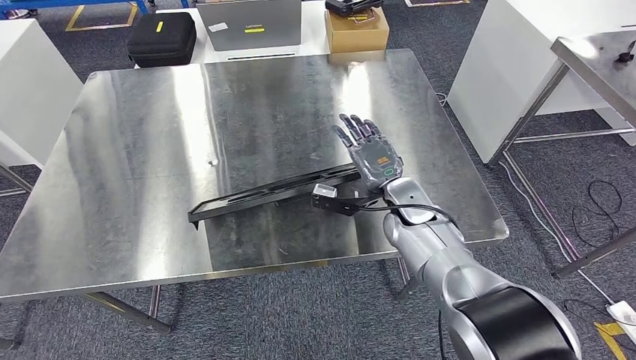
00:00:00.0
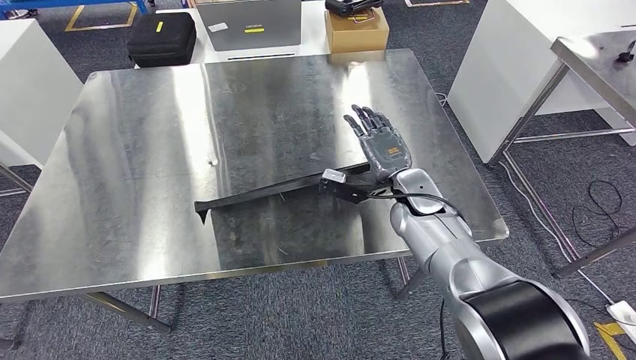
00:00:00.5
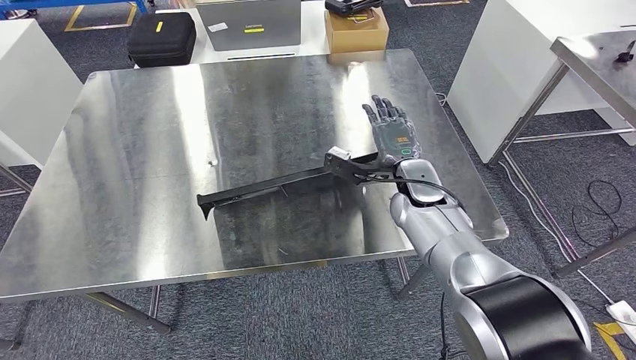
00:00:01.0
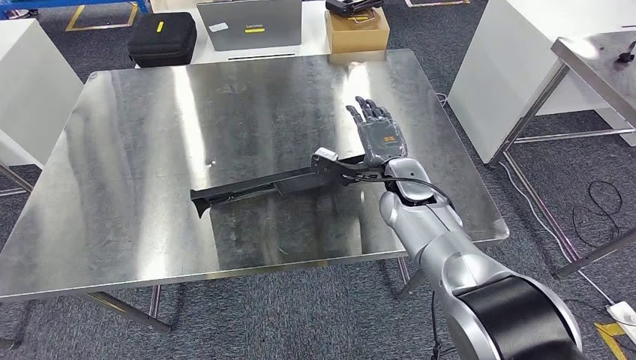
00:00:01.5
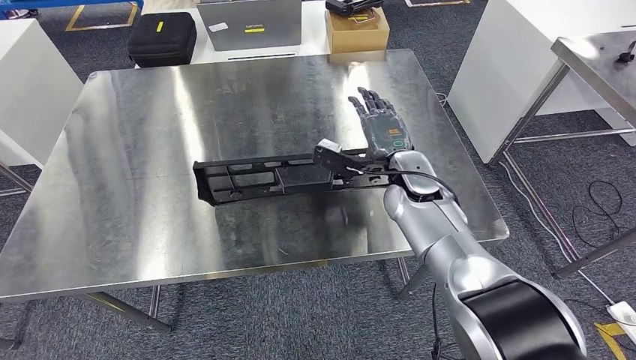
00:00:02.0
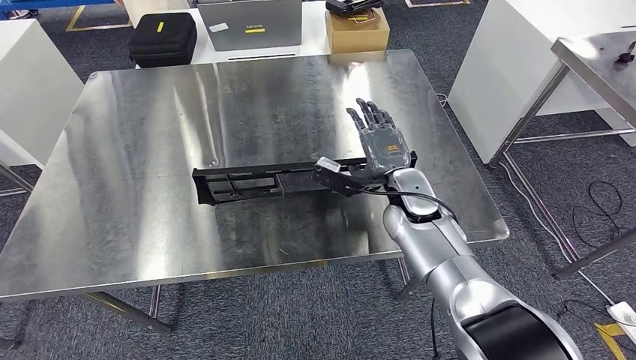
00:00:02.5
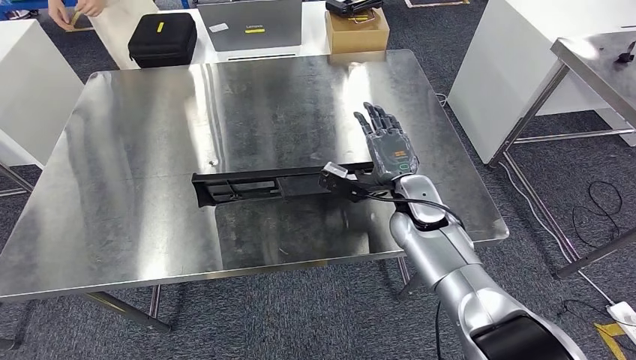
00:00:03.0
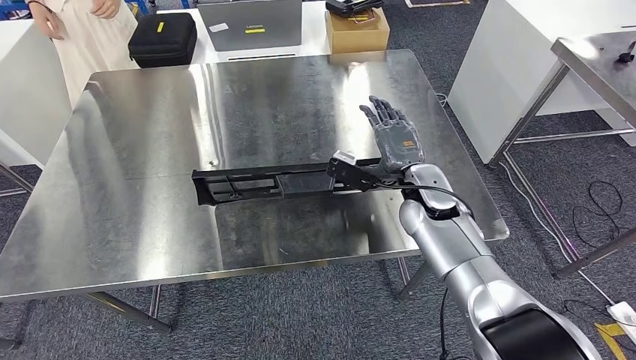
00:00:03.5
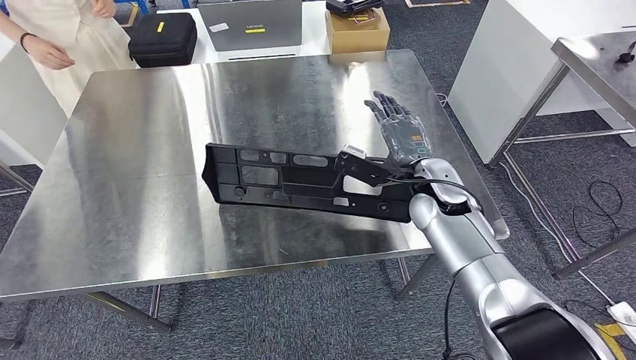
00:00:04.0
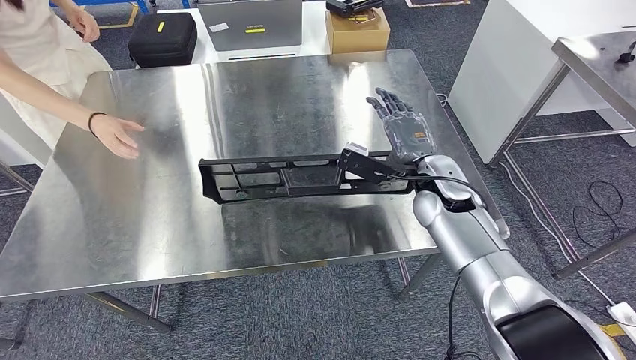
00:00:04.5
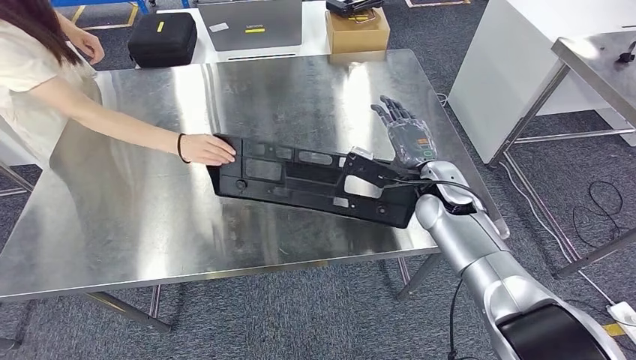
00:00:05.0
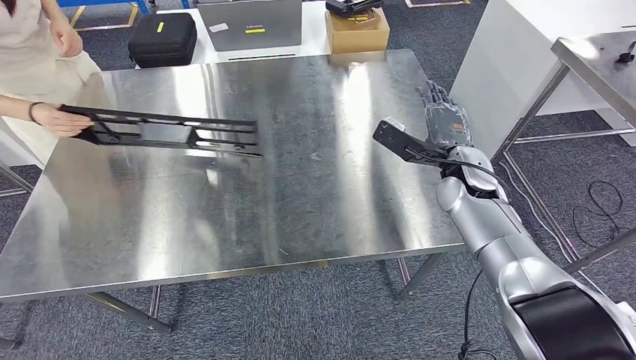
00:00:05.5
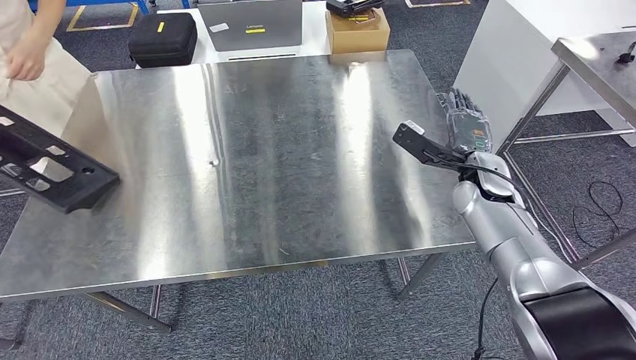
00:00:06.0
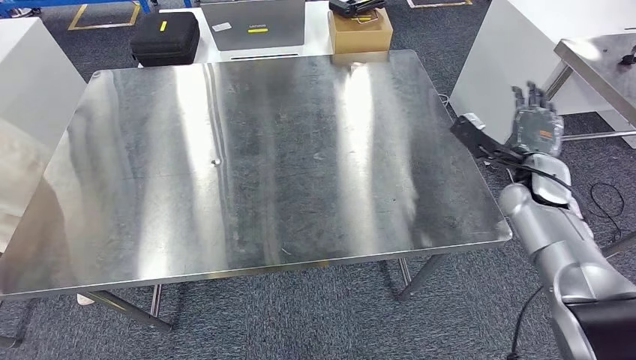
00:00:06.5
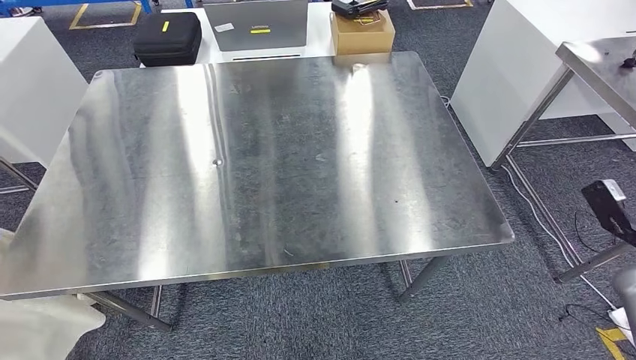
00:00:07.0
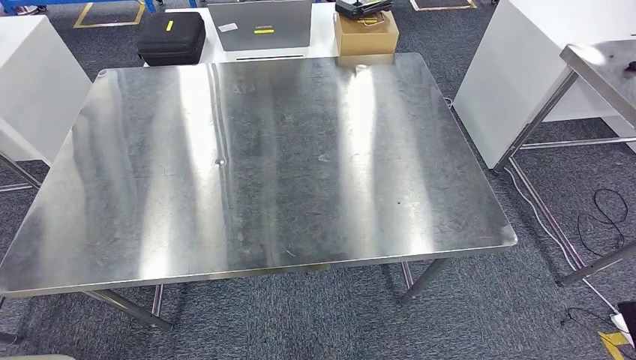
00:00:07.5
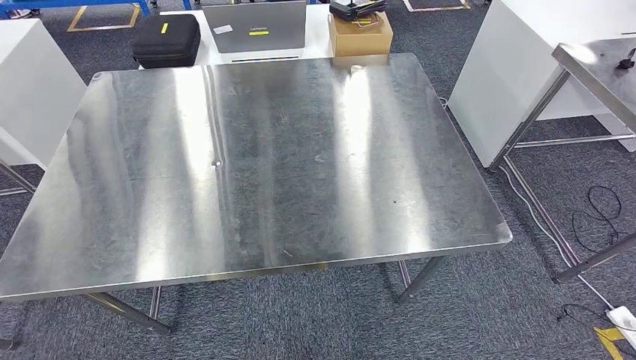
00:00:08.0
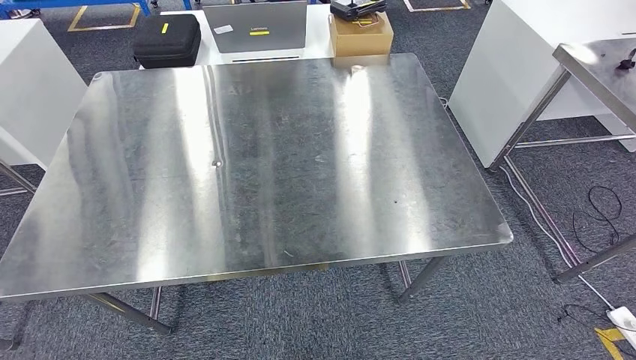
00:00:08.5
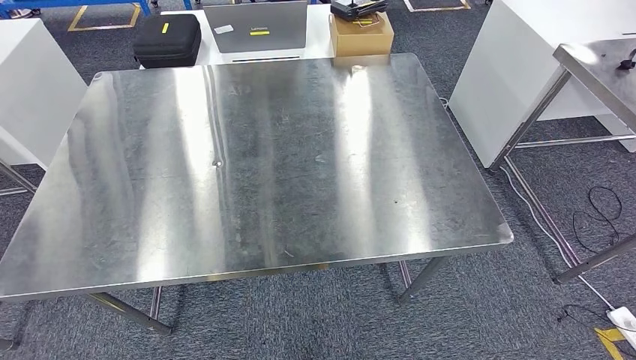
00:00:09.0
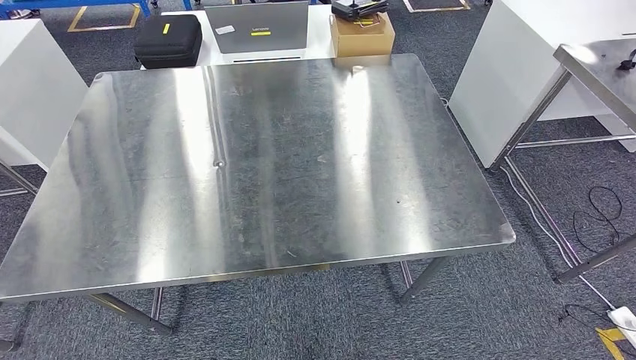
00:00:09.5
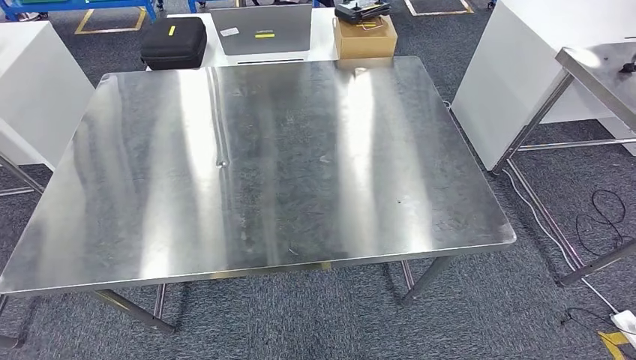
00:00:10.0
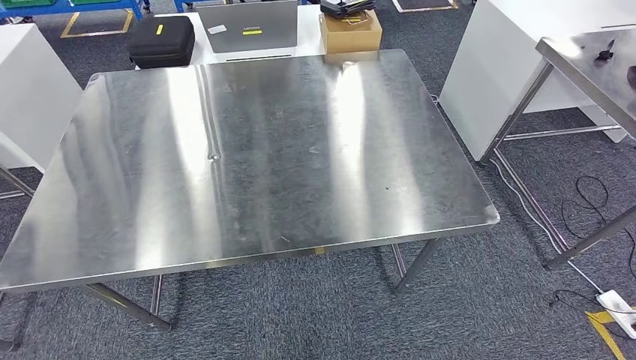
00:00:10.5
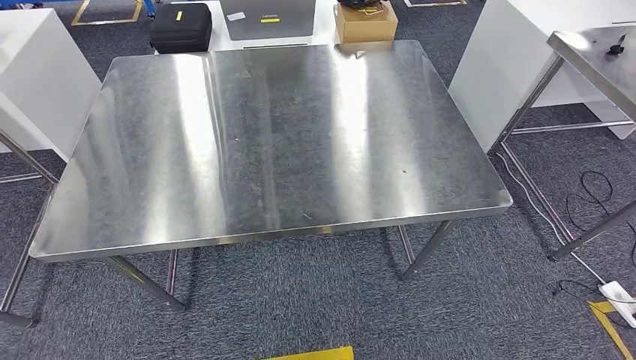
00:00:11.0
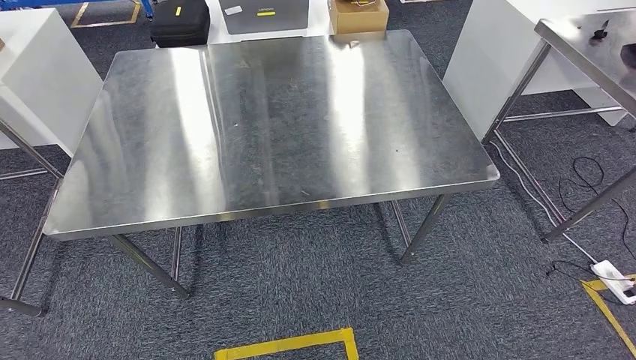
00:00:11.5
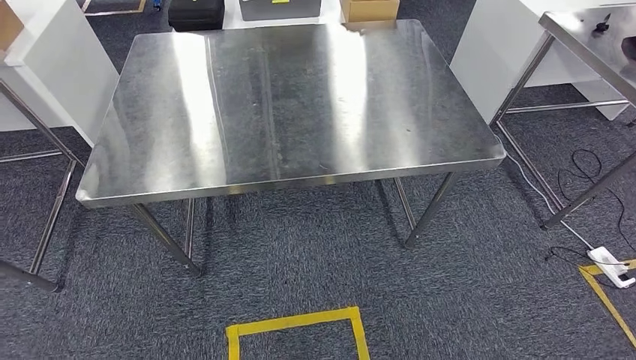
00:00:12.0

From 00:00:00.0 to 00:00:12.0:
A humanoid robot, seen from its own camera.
Step, from 00:00:00.0 to 00:00:05.5: Insert the large material into the corresponding hole on the workbench.
From 00:00:00.0 to 00:00:02.0: The right hand shifts approximately 5 cm upward.
From 00:00:02.0 to 00:00:04.0: There are only small adjustments of the hands.
From 00:00:08.0 to 00:00:10.0: The right hand shifts some 15 cm to the left.

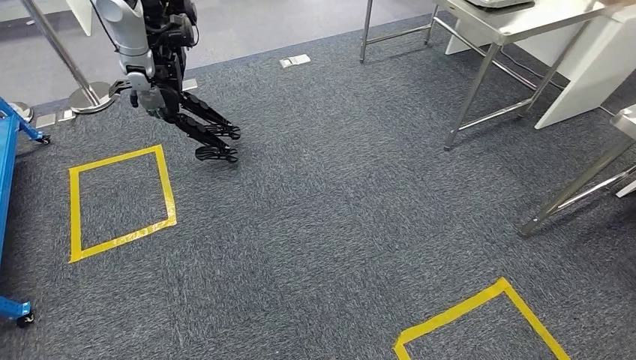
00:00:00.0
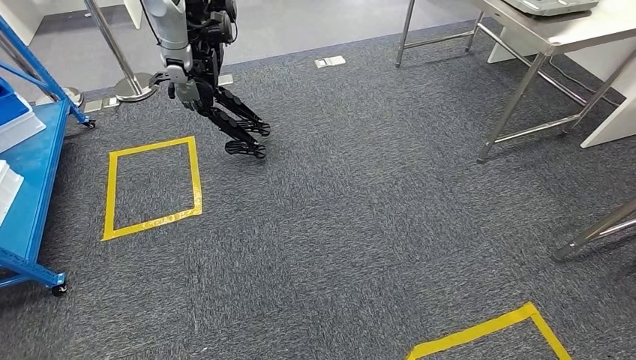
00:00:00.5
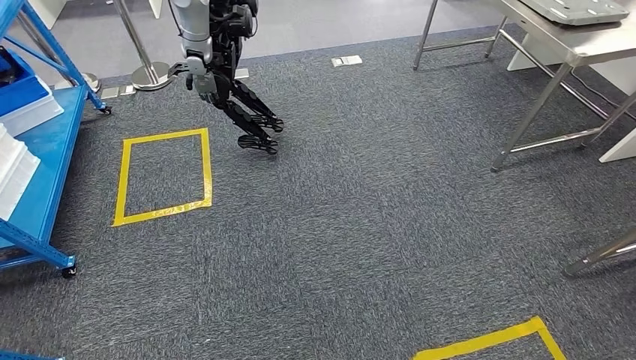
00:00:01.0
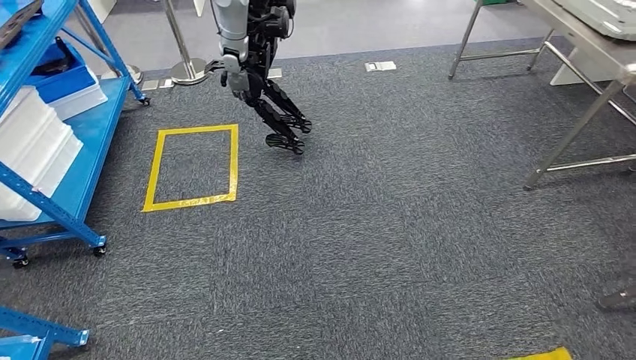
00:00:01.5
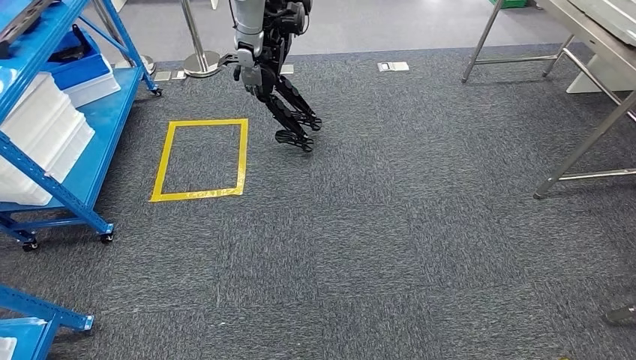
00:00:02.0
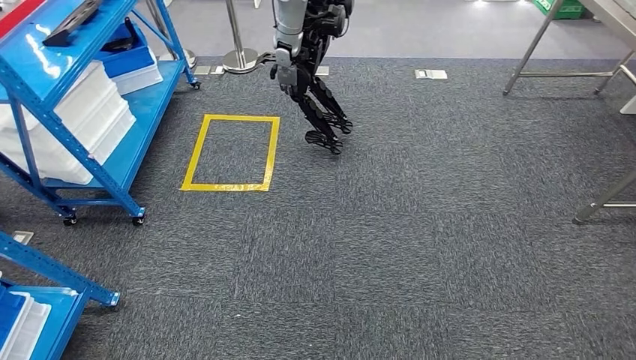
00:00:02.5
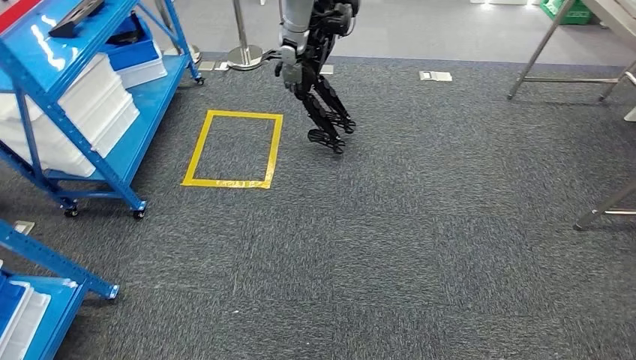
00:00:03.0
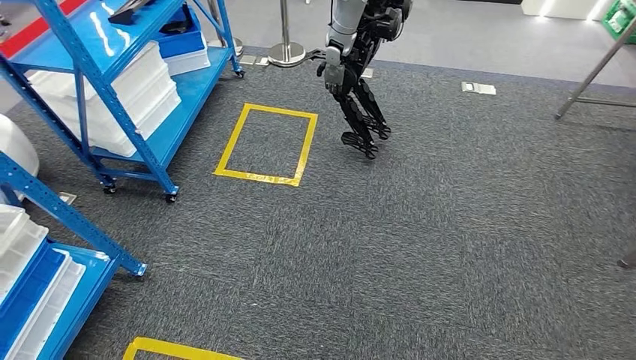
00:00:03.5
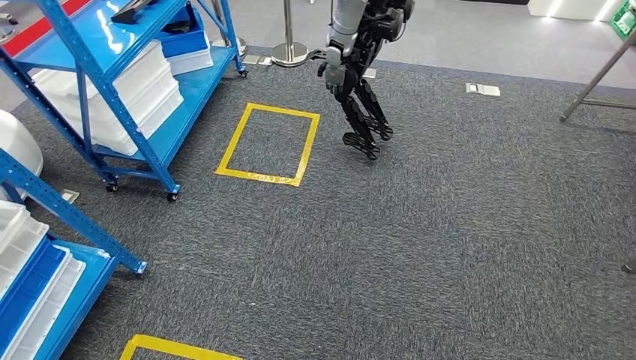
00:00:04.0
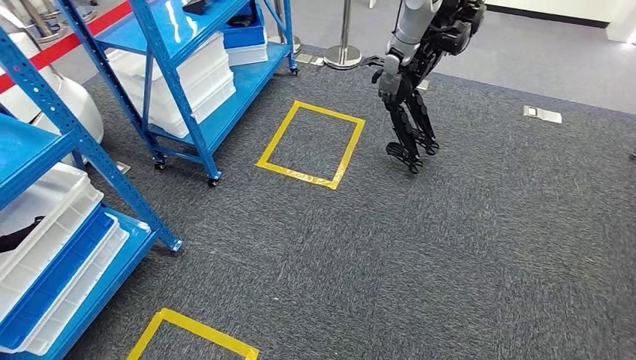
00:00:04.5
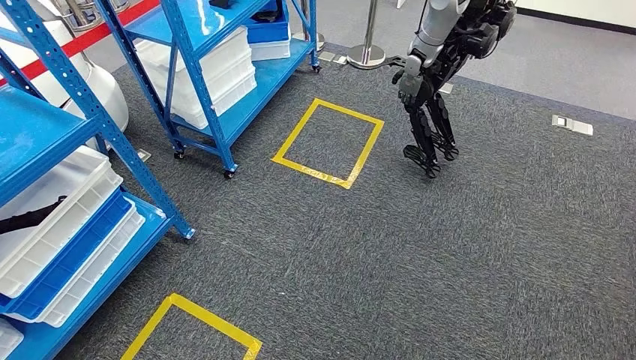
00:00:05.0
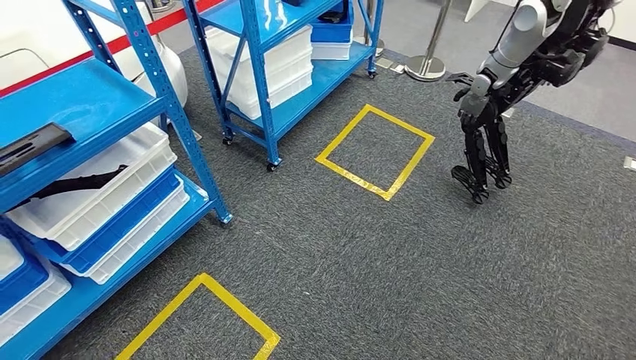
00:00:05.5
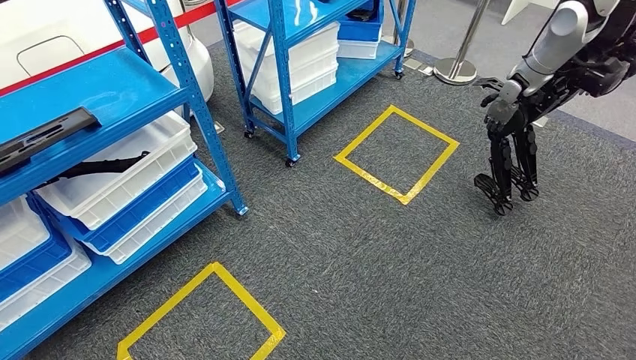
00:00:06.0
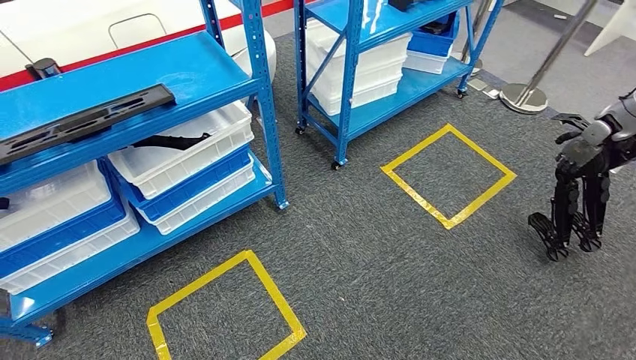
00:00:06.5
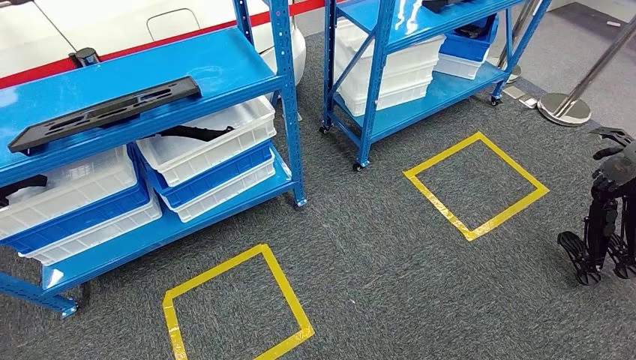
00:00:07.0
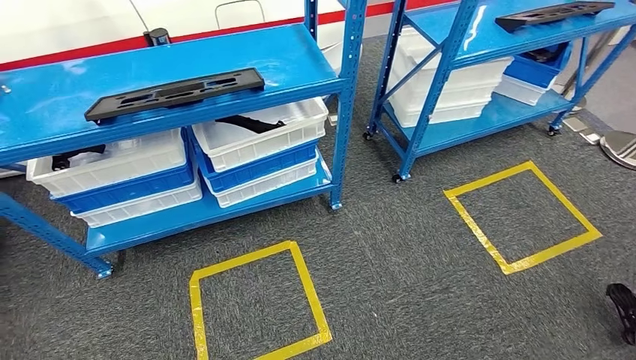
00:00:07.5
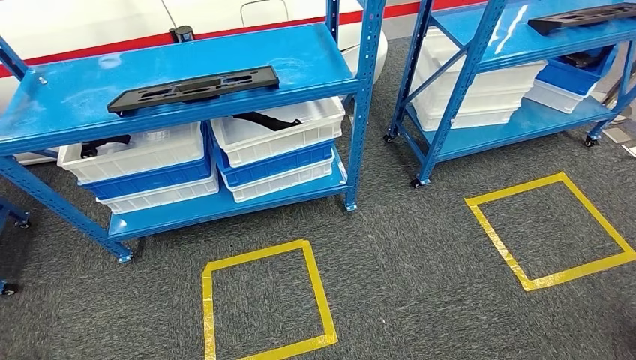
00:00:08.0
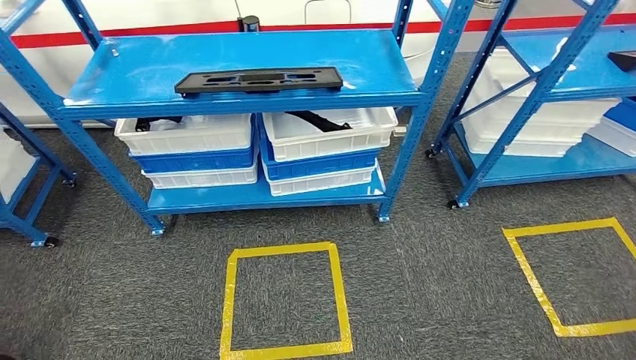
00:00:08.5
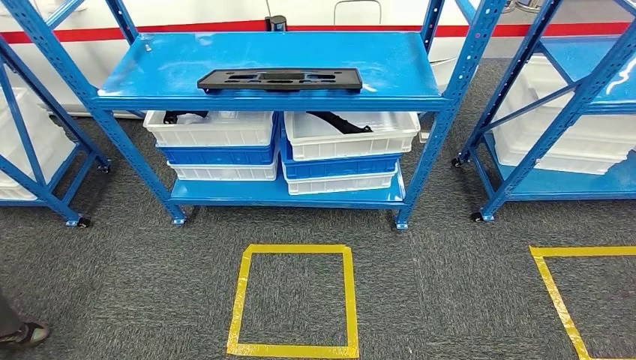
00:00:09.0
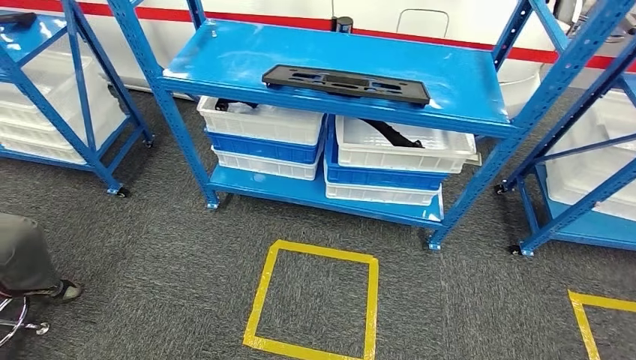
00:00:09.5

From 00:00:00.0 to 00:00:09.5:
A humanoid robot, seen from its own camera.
Step, from 00:00:00.0 to 00:00:09.0: Move to the initial position of the shelf.
